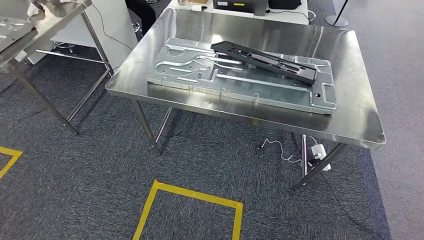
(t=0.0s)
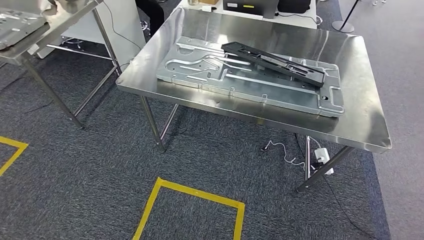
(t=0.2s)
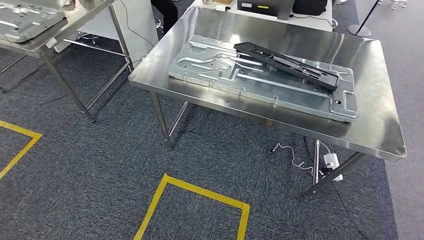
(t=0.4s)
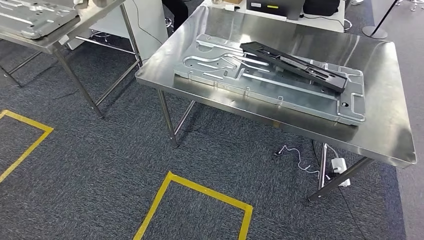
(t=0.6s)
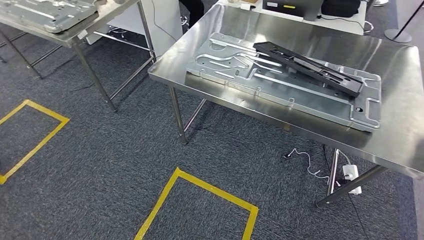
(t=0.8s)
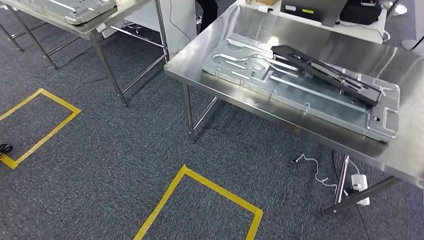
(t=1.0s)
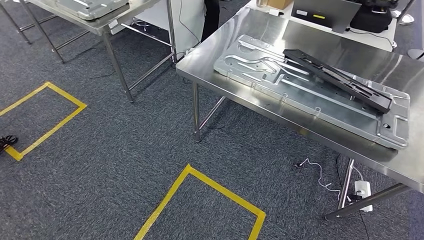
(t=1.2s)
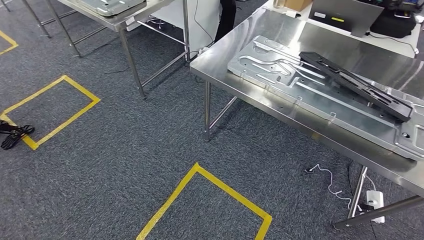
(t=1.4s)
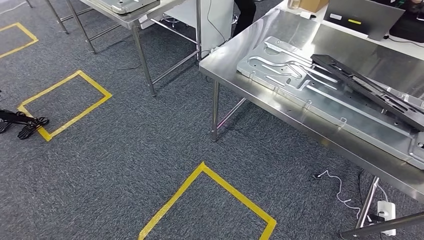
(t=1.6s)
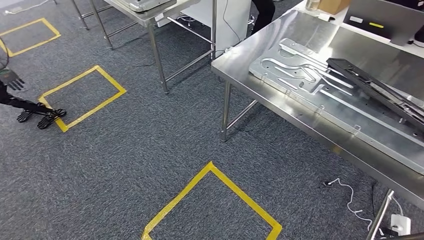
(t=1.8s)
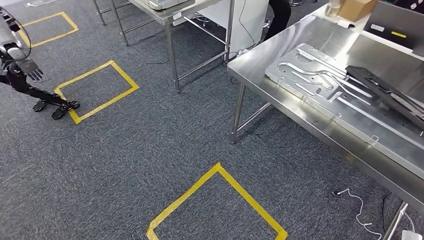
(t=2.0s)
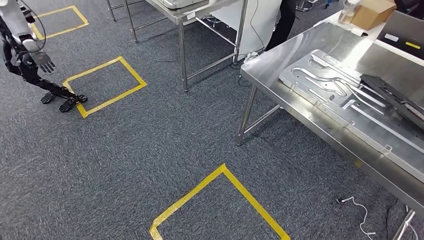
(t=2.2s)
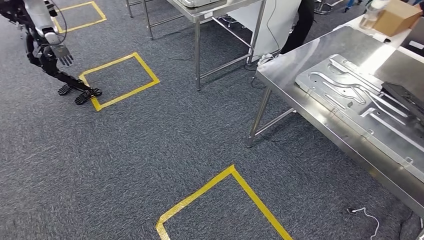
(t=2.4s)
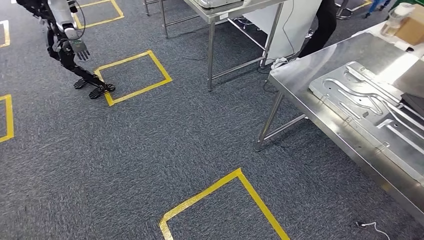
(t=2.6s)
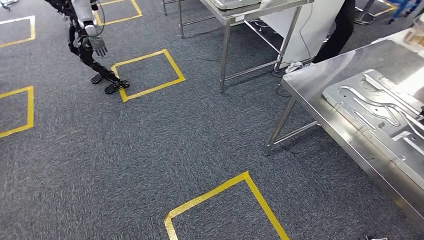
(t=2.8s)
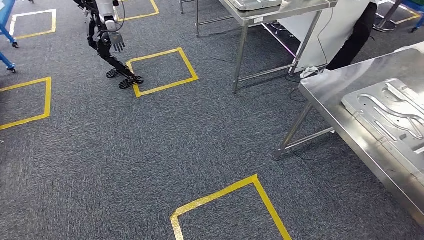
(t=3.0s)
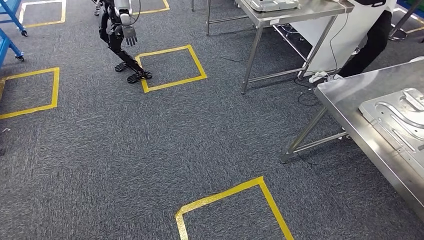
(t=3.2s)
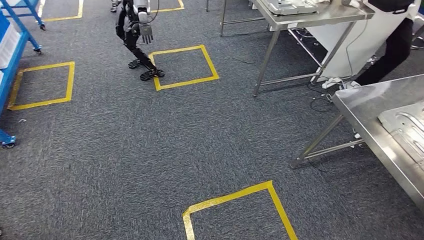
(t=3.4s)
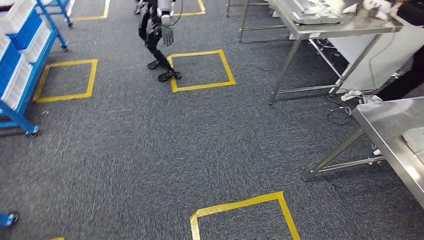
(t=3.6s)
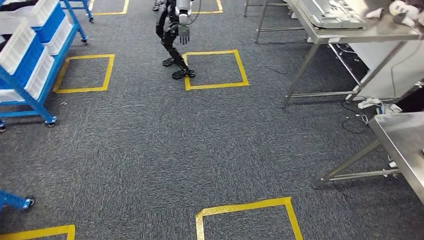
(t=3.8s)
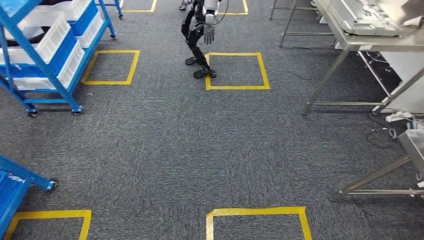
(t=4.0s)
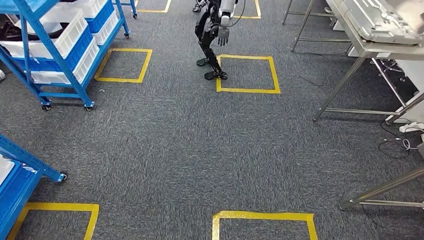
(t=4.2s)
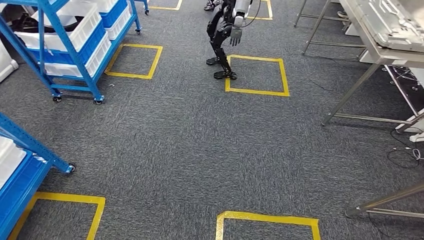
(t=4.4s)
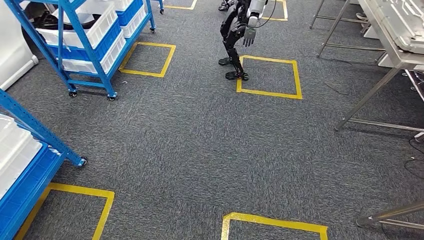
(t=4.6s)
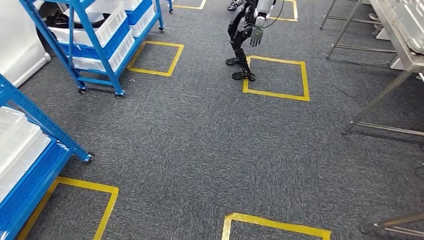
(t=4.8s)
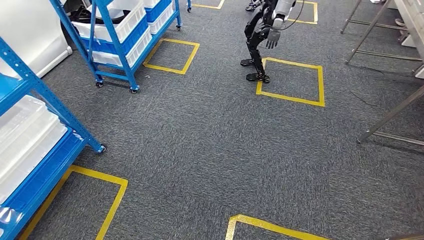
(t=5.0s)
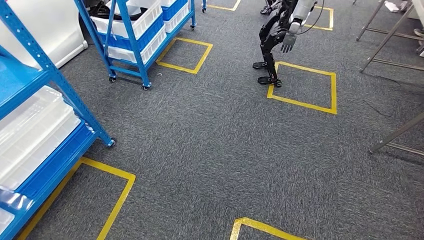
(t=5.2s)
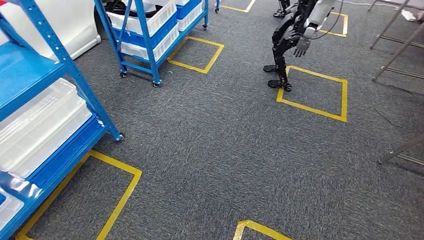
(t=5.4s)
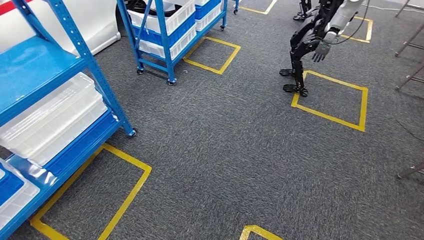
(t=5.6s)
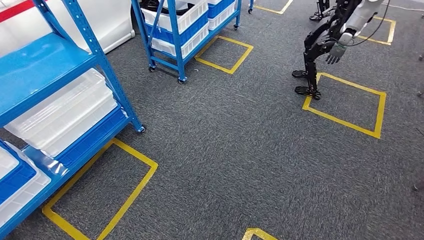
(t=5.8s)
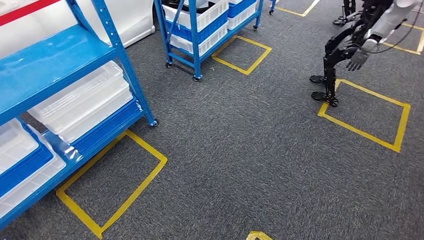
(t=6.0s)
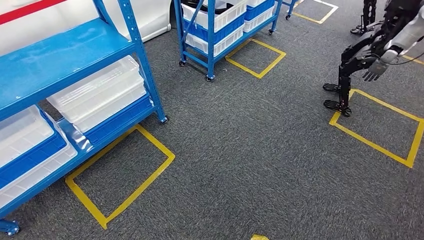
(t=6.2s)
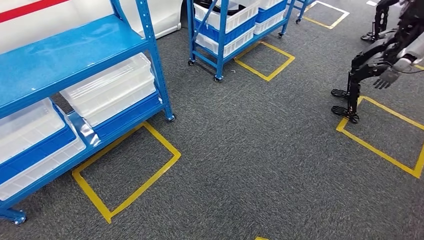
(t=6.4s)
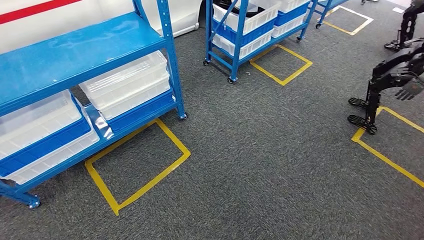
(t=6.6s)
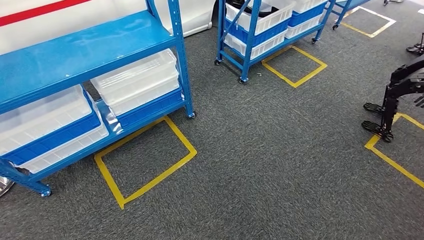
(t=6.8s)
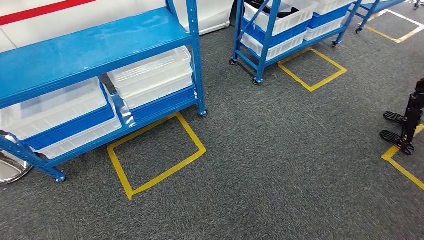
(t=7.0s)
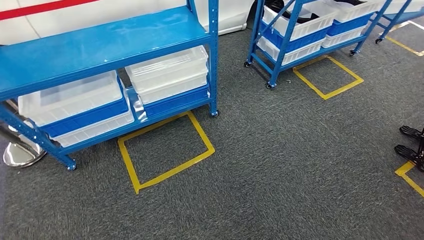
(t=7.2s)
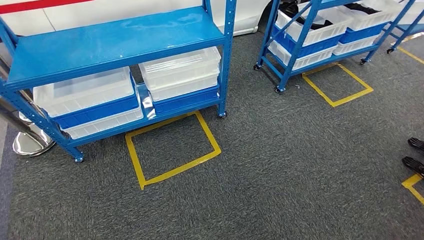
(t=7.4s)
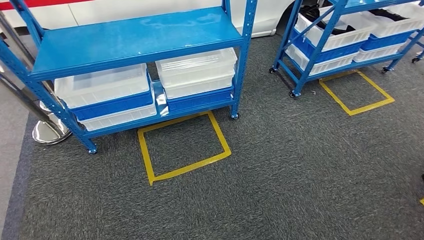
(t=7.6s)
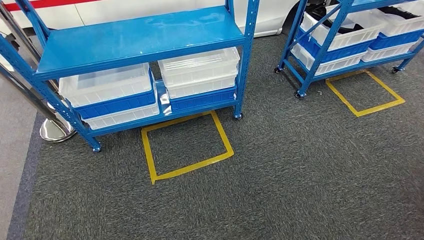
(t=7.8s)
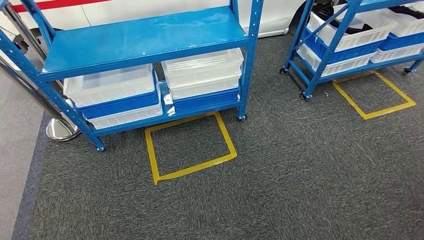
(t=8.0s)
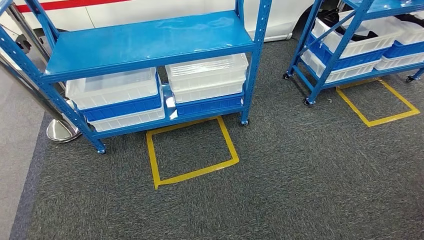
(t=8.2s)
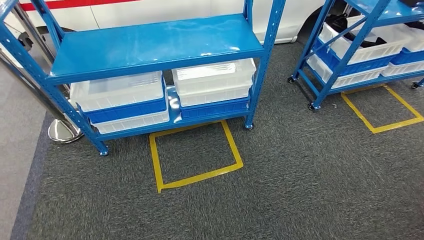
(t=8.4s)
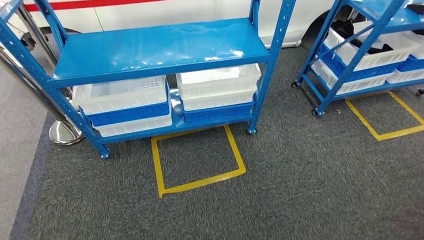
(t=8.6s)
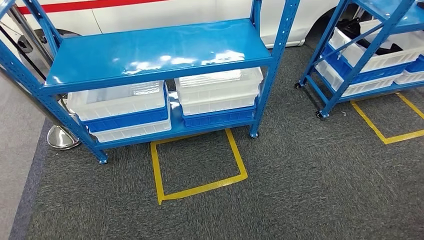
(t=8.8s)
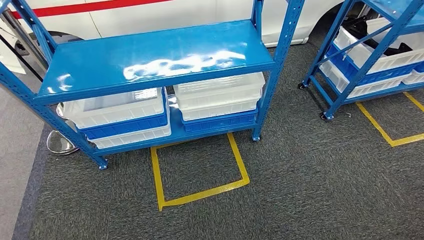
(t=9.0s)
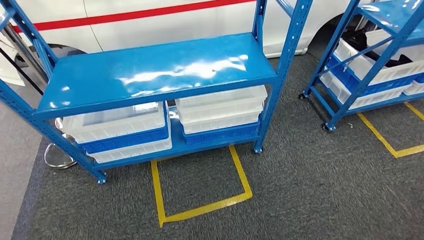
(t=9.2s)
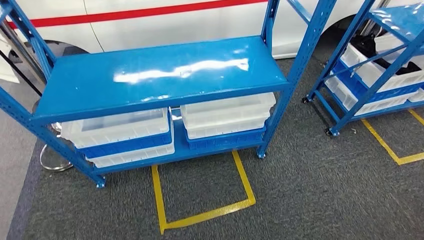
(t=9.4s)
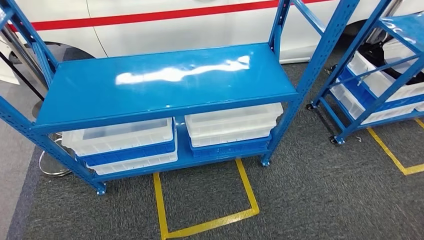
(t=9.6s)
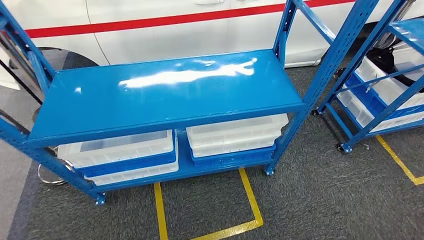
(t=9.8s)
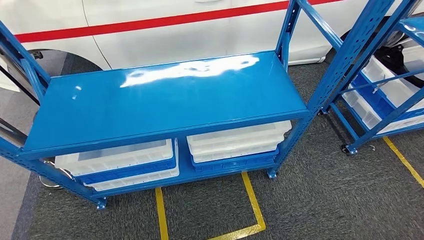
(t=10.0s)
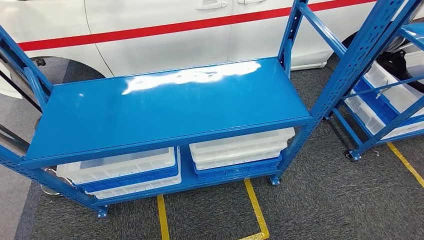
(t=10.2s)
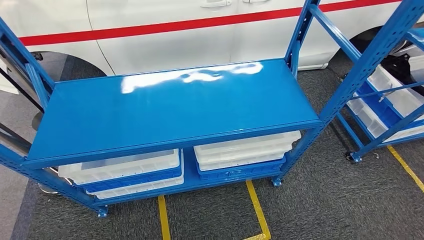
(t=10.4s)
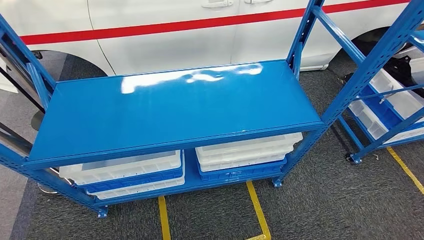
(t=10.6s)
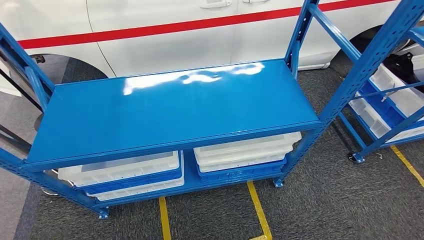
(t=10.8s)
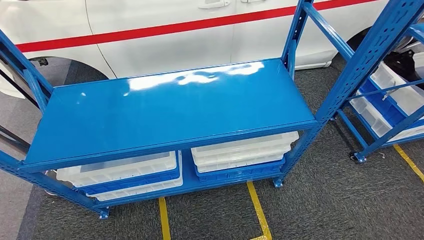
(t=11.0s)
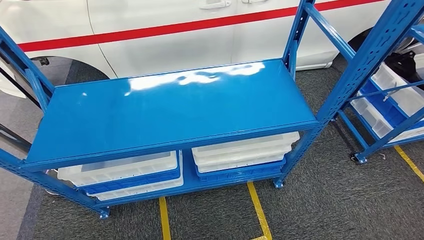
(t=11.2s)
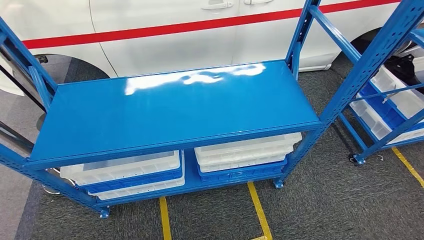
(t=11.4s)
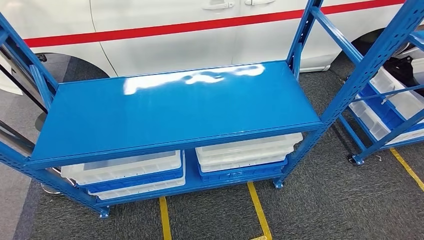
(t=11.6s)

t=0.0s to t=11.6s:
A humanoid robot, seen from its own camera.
Step, t=0.0s to t=11.6s: Return to the initial position at the shelf.
